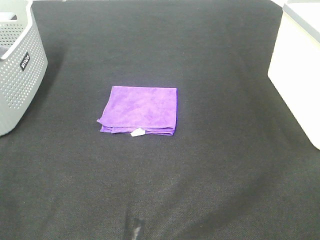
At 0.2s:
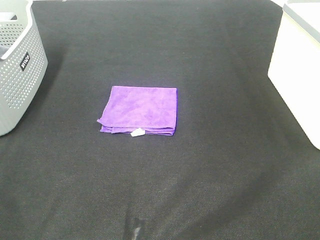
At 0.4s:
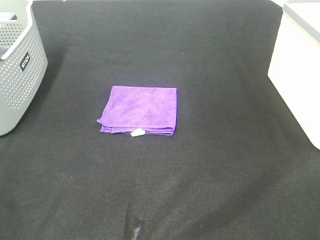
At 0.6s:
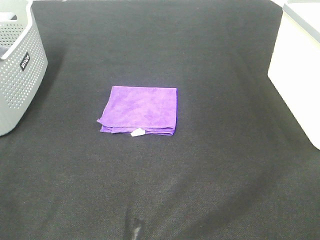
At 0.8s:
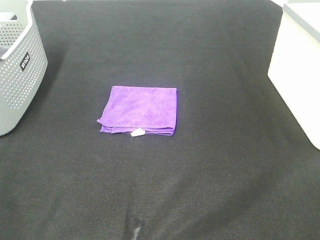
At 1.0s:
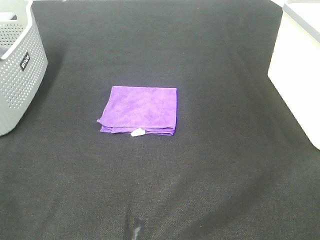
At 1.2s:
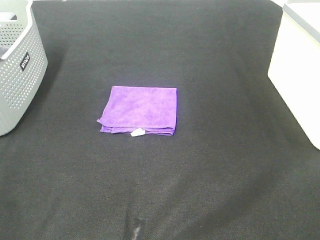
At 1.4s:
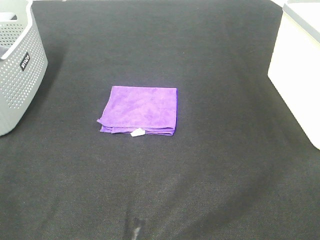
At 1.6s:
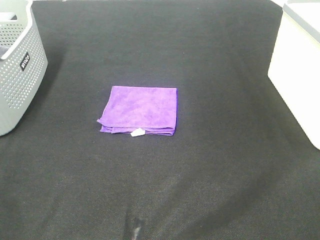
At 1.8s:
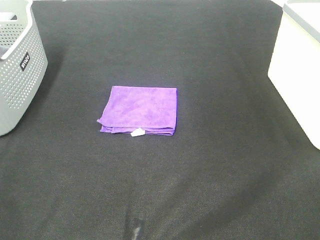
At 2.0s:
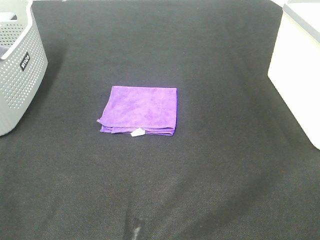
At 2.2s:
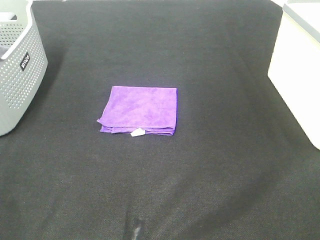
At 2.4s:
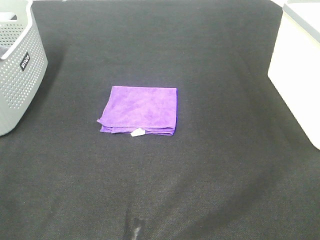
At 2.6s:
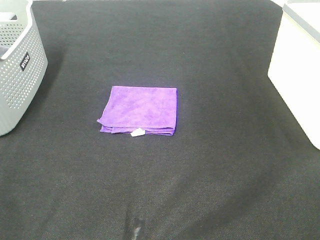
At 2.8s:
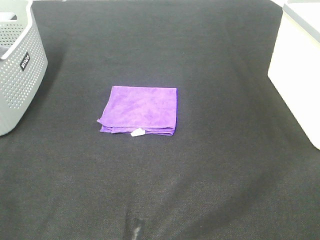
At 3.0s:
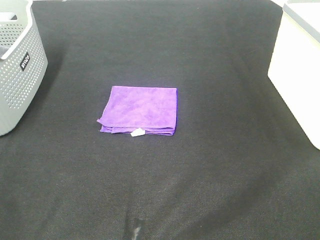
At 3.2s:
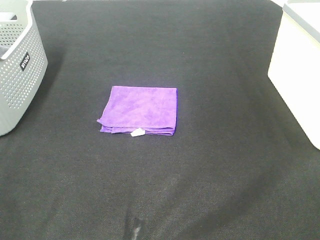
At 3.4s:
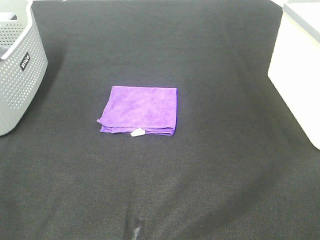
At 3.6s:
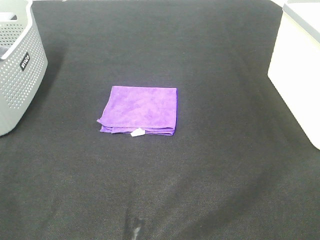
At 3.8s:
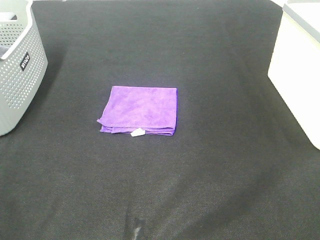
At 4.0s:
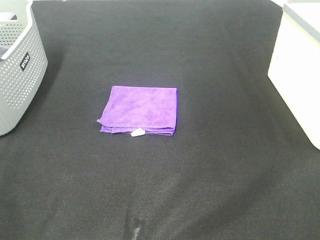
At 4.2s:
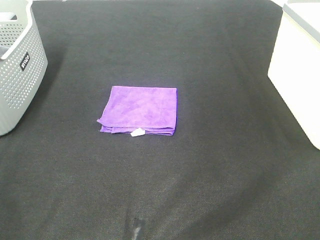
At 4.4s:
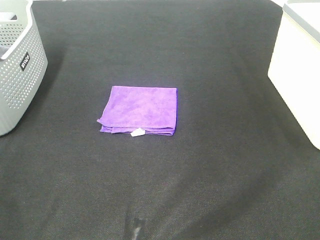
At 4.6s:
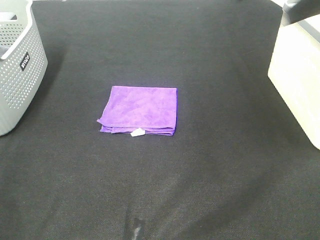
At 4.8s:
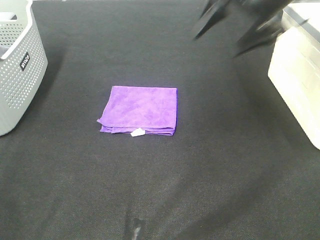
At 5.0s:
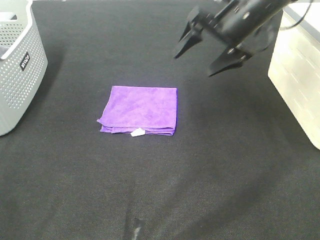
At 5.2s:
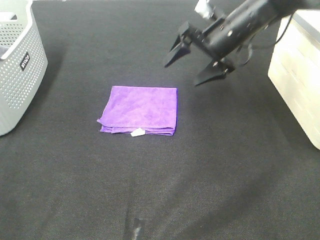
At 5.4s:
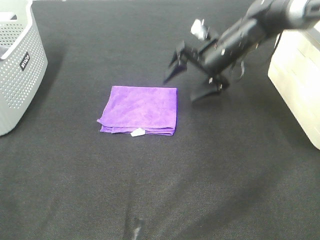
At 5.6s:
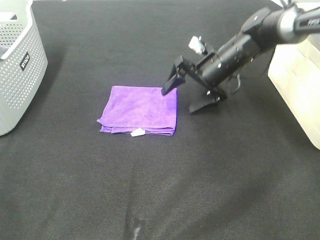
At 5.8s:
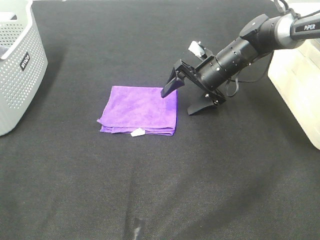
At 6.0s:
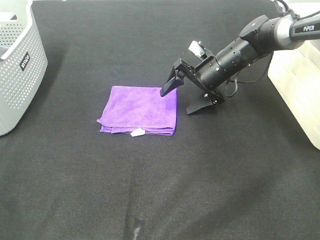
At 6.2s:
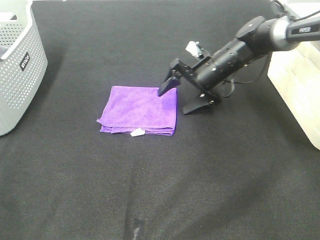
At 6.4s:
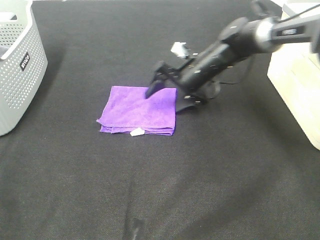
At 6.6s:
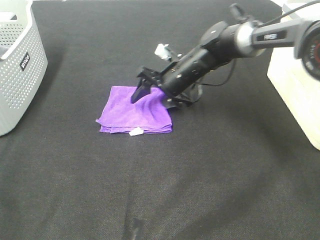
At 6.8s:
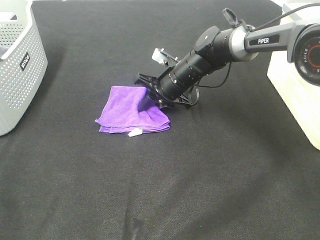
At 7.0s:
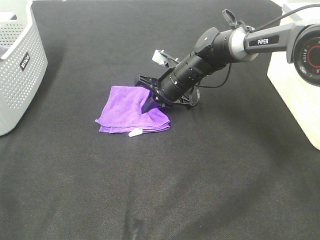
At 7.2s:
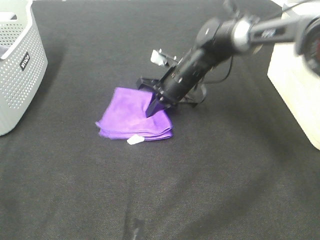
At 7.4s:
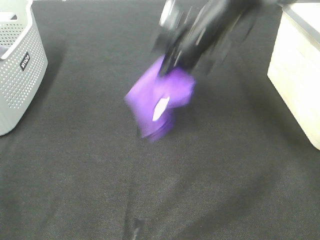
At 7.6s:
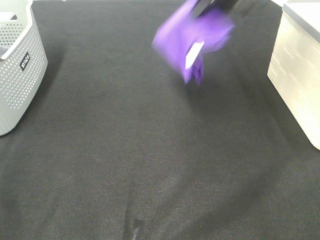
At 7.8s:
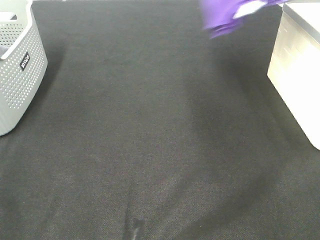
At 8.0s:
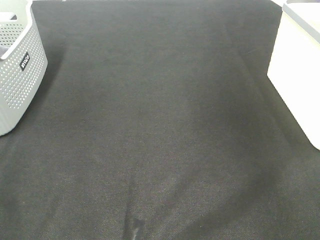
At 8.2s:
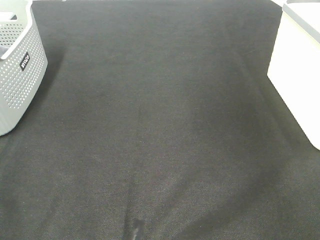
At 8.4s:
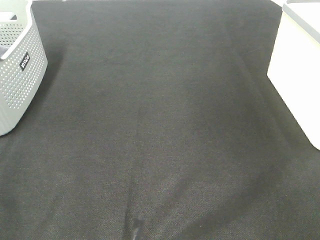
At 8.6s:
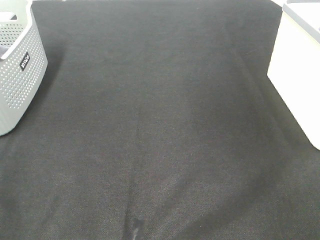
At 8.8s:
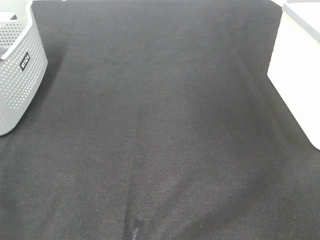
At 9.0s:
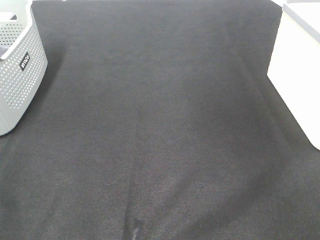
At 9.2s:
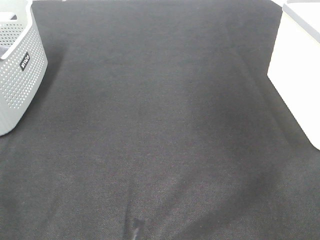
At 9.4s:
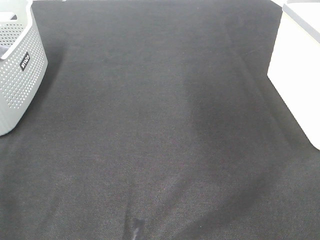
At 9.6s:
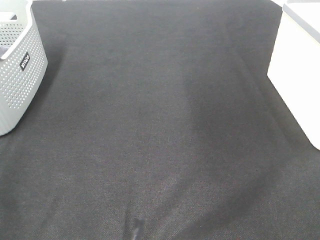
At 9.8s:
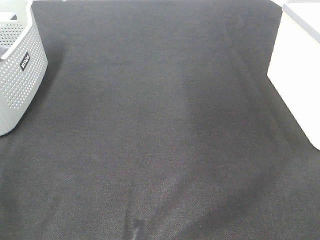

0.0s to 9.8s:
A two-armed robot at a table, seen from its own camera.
Step, 0.0s to 7.0s: Right hand: grab the folded purple towel.
Step, 7.2s to 8.8s: Right hand: place the purple towel in right basket.
0.0s to 2.8s: Both grippers stay put.
4.2s to 5.6s: The right gripper travels downward, forward and to the left by some 40 cm.
5.6s to 7.0s: The right gripper goes some 10 cm to the left, and closes up.
7.0s to 8.4s: The right gripper moves to the right and upward, some 50 cm.

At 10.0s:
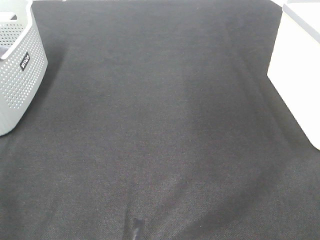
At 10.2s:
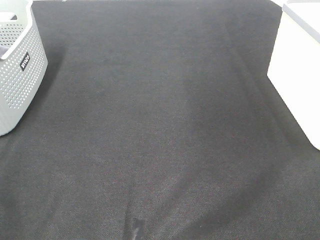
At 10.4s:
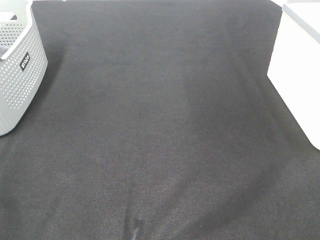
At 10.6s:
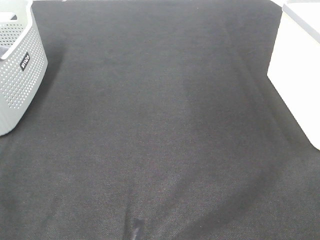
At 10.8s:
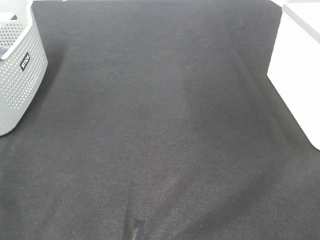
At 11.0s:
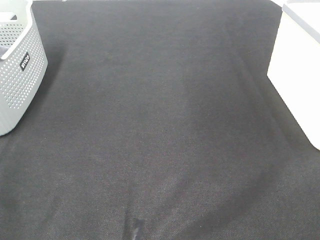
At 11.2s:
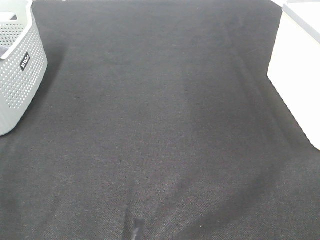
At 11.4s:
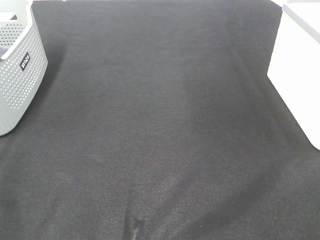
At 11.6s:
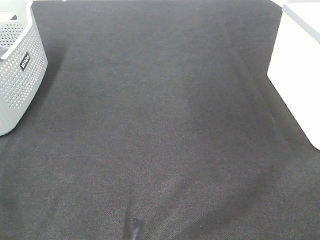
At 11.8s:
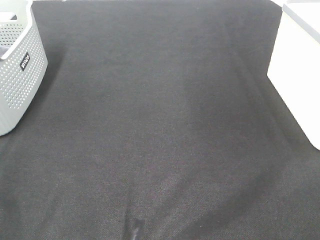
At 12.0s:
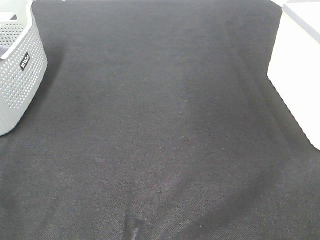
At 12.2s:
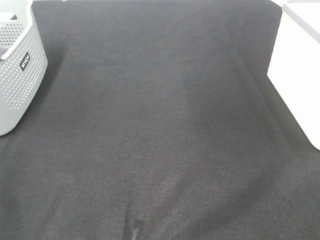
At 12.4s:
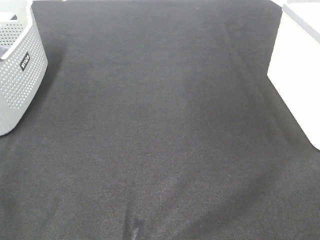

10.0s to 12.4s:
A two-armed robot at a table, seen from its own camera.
11.2s to 12.4s: Both grippers stay about where they are.

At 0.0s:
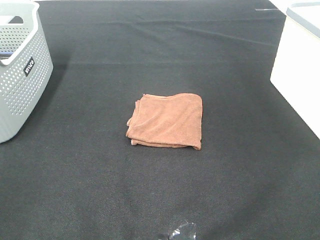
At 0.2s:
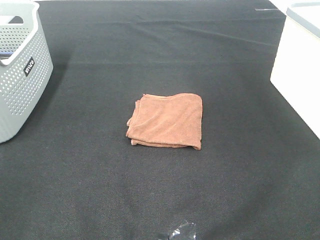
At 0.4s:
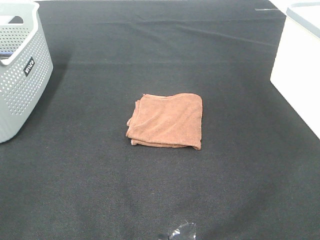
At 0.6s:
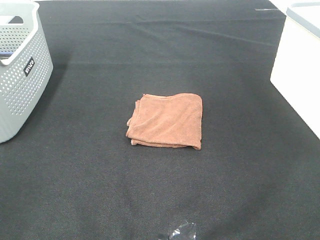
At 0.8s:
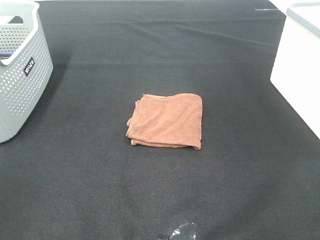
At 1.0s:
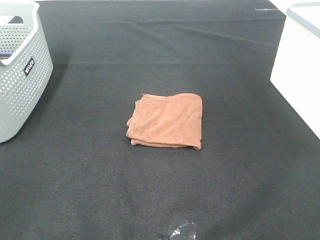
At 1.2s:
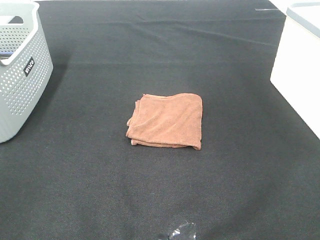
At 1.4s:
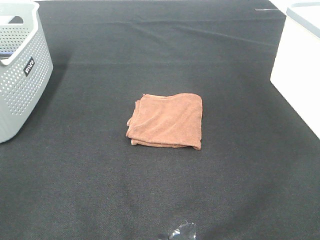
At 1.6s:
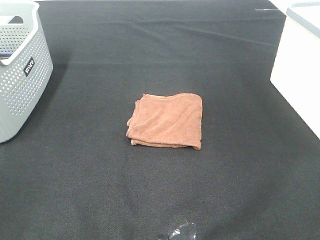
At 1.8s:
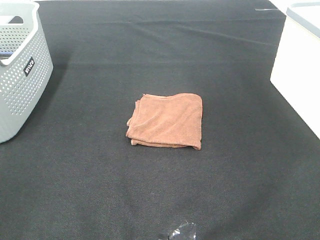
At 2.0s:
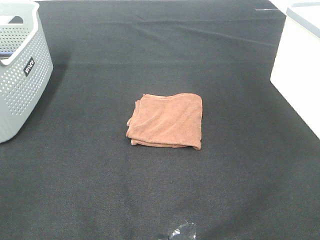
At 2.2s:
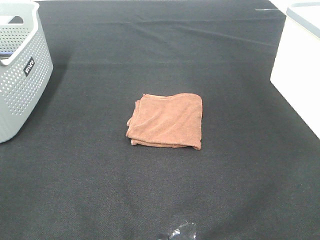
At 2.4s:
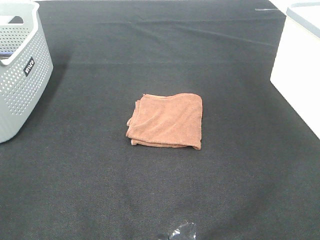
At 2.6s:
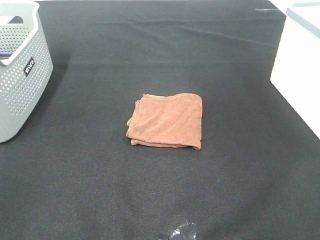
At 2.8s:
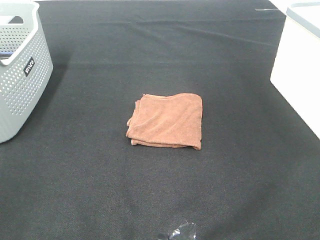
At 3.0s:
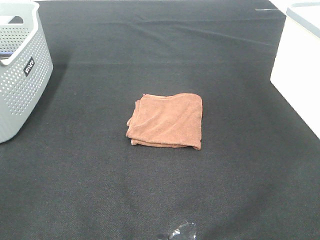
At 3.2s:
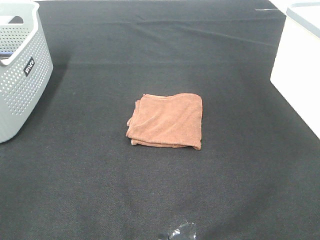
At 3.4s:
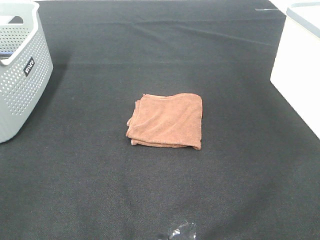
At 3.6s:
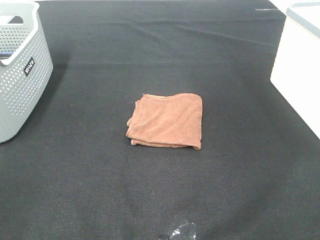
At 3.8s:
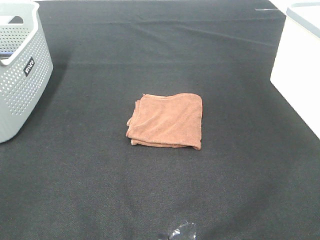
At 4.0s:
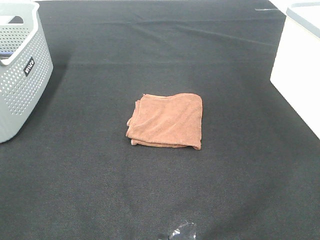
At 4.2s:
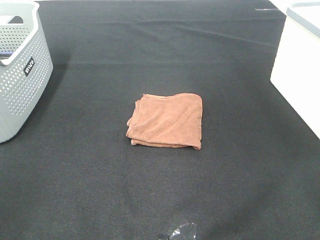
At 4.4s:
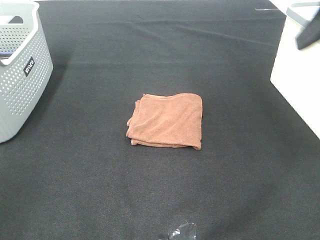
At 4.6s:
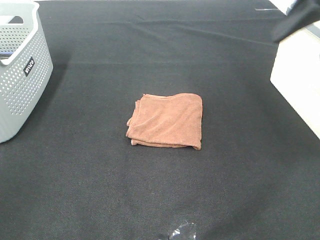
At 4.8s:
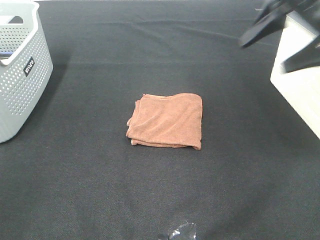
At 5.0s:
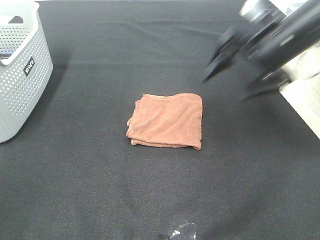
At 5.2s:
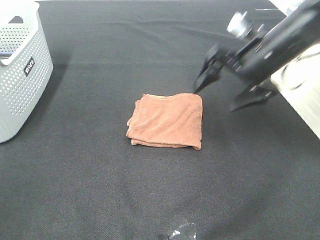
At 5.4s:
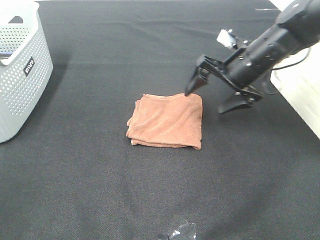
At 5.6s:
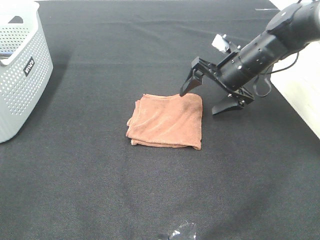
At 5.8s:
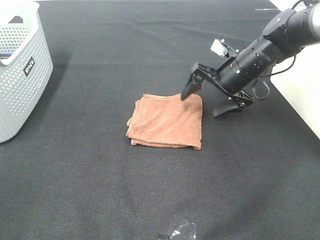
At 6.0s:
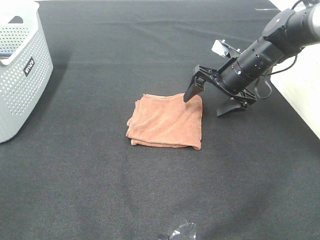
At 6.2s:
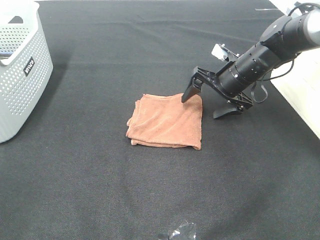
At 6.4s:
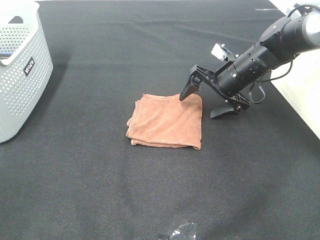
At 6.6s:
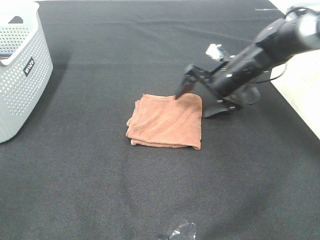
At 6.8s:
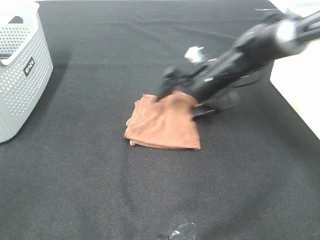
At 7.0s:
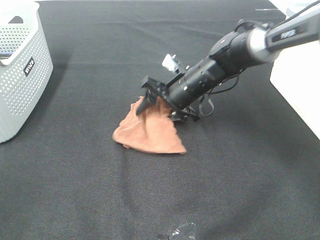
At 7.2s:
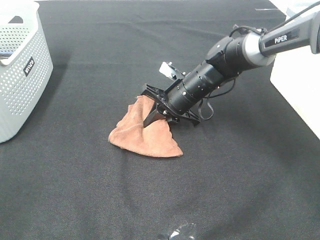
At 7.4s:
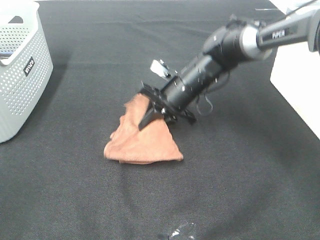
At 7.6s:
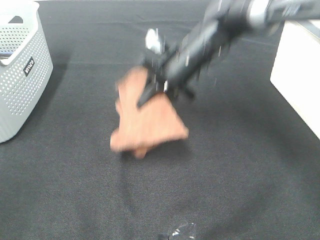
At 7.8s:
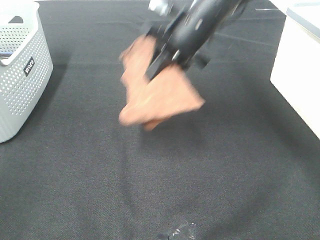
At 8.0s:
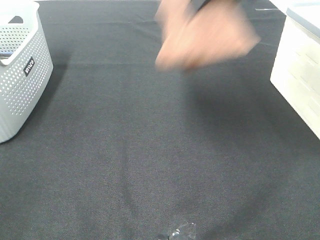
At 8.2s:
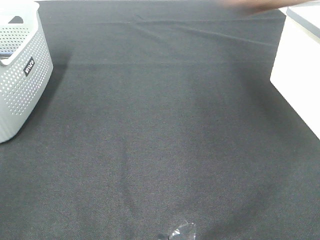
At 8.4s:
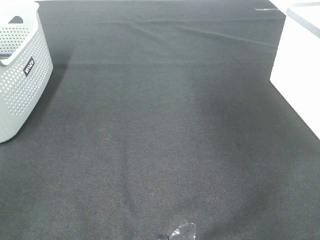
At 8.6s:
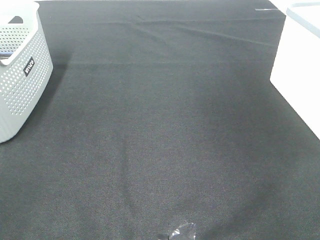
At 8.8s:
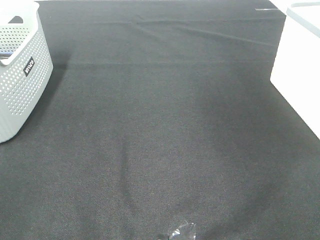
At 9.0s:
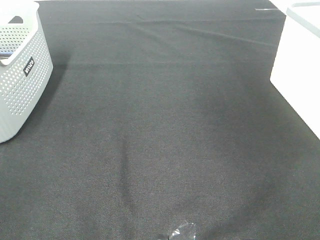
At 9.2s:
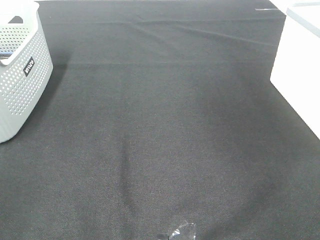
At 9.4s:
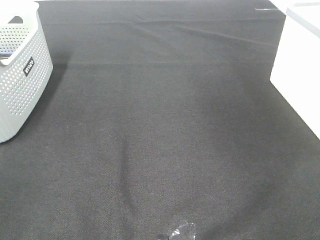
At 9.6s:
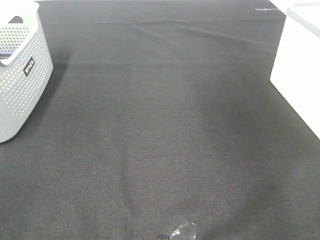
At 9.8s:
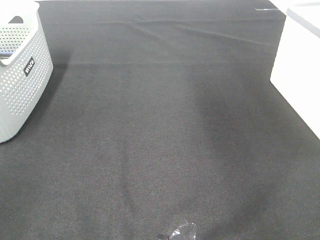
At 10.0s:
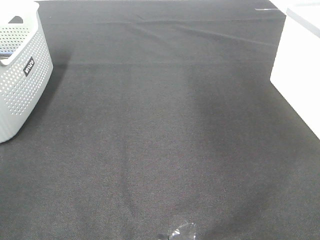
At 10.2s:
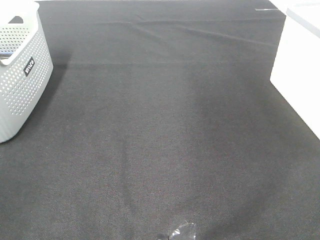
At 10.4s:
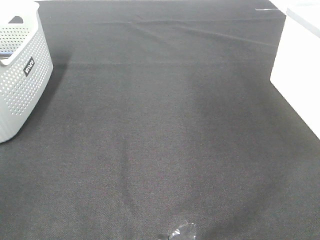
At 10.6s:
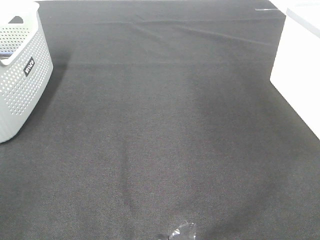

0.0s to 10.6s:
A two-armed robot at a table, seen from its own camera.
Step, 0.0s to 7.2s: Right hand: grab the folded brown towel.
Step, 7.4s to 9.2s: Right hand: place the brown towel in right basket.
0.0s to 3.0s: Both grippers stay about where they are.
3.0s to 4.6s: The right gripper shifts some 30 cm forward.
4.6s to 6.0s: The right gripper goes some 25 cm downward and forward.
6.0s to 7.6s: The right gripper goes about 15 cm to the left and upward, and closes.
7.6s to 9.0s: The right gripper shifts some 40 cm to the right, and opens up.
